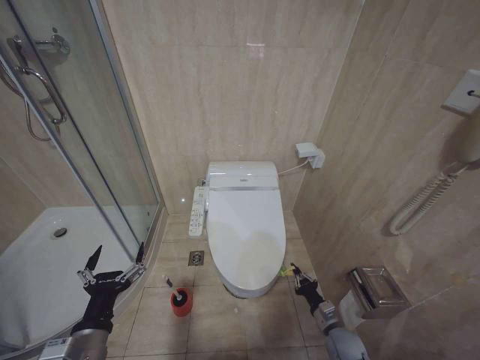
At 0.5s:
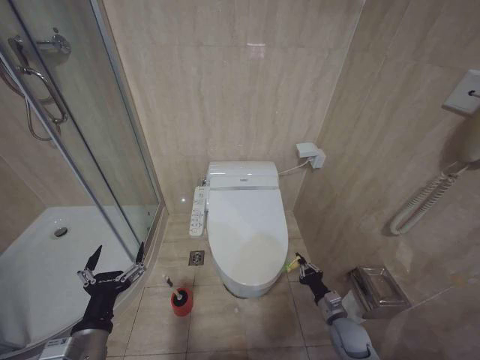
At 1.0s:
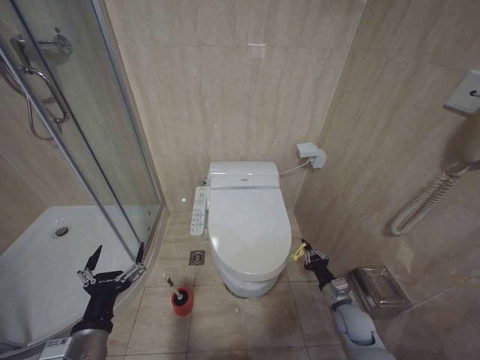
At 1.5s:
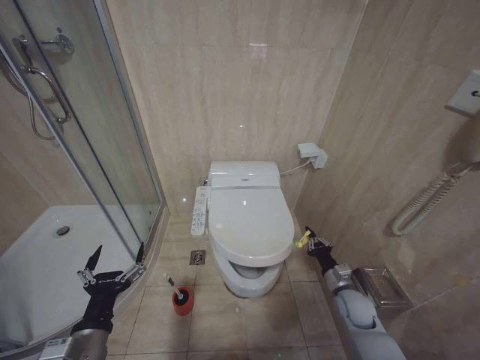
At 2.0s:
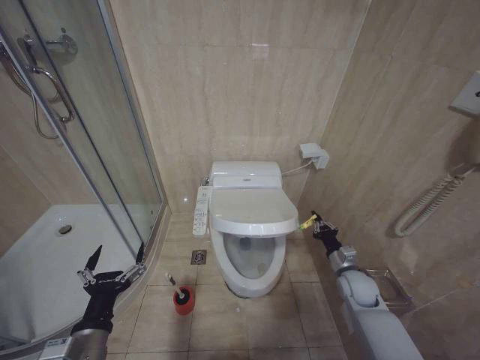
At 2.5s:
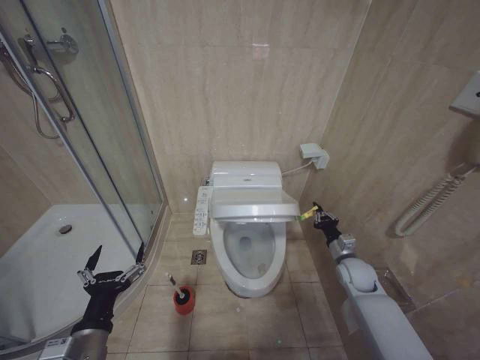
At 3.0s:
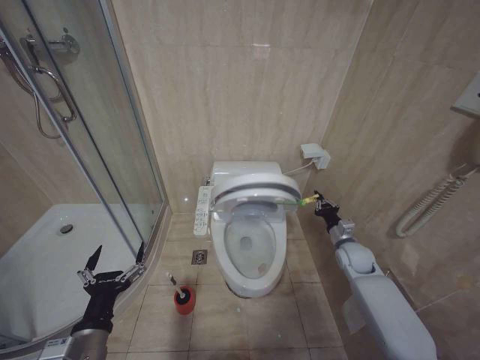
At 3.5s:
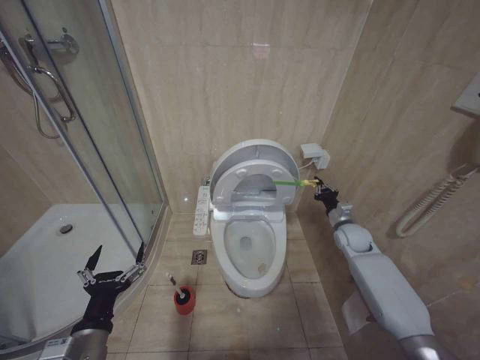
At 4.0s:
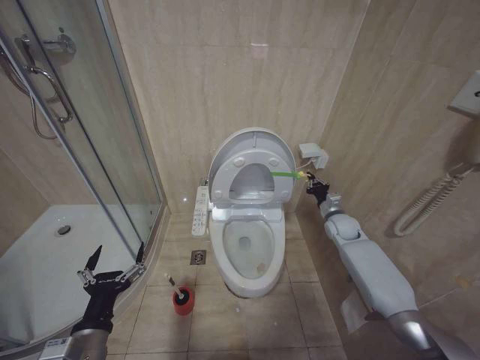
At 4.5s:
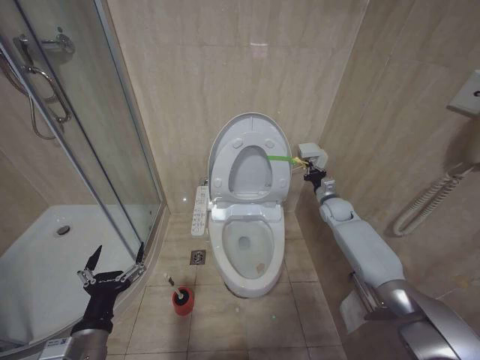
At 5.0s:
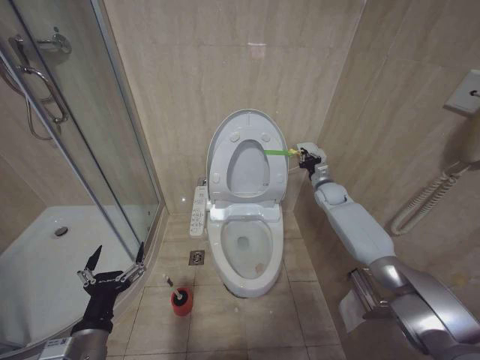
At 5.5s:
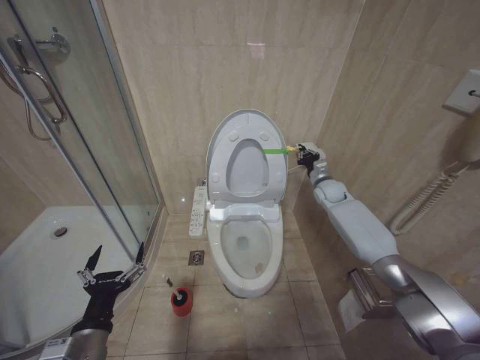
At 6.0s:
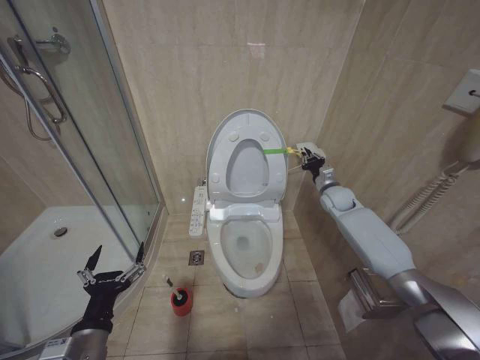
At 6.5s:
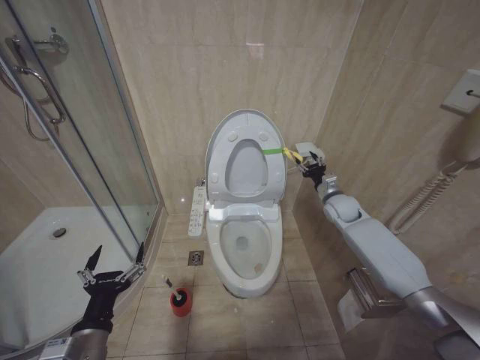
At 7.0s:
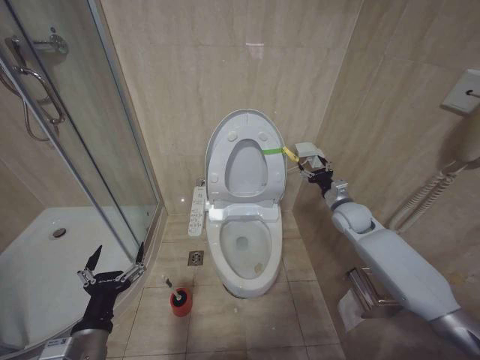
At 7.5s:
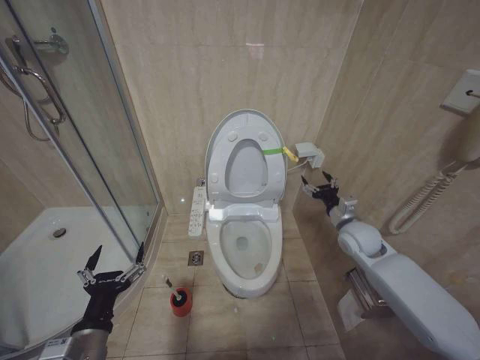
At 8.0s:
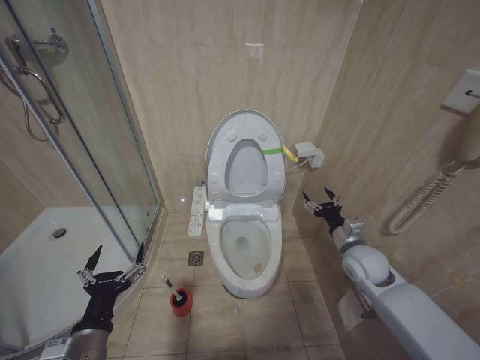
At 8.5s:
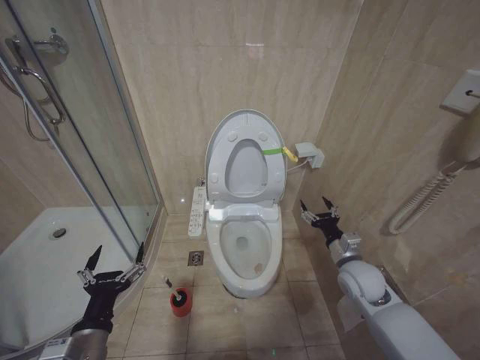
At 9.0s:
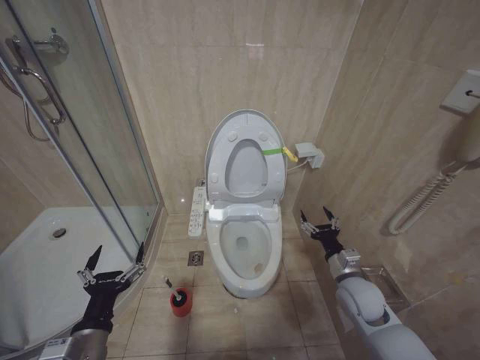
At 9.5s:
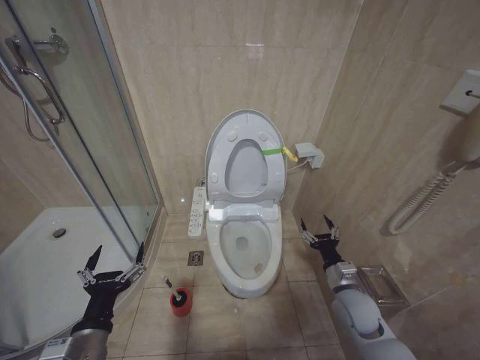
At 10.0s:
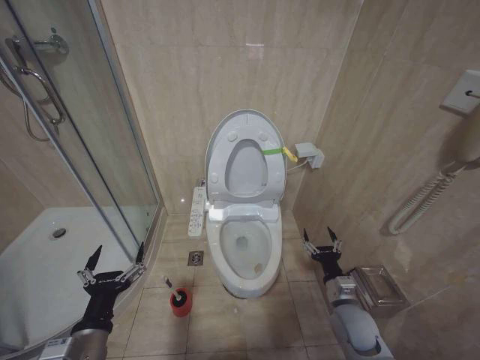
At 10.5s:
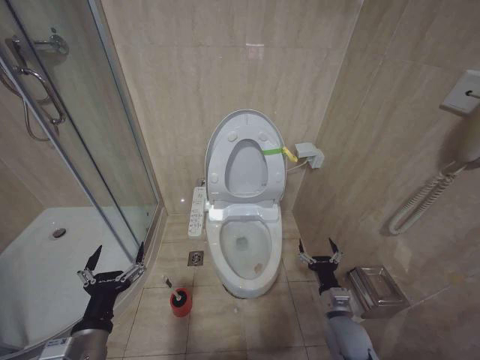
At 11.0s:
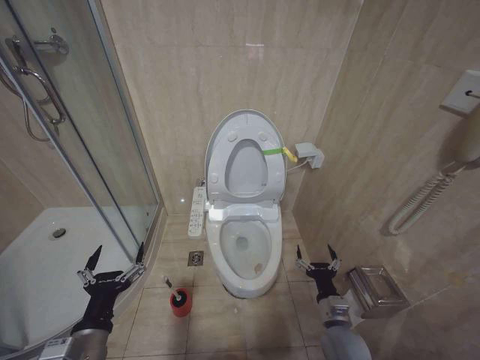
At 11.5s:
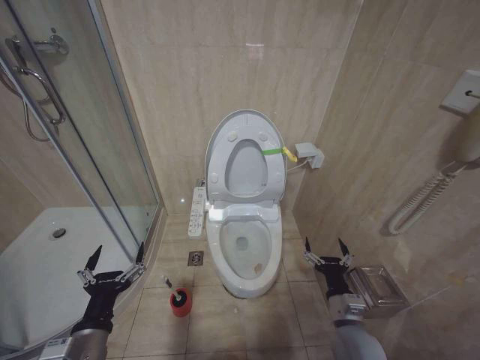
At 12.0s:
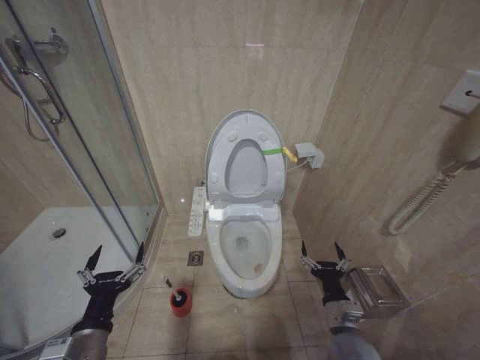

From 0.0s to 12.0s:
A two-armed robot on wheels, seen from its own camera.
Task of the whole recording: Open the toilet lid, clean the toilet bowl with a toilet brush, close the toilet lid, and flush.
From 0.0s to 2.0s: The right gripper travels upward and forward by roughly 15 cm.
From 2.0s to 4.0s: The right gripper heads forward and upward, covering some 15 cm.
From 4.0s to 6.0s: The right gripper shifts roughly 10 cm upward and forward.
From 6.0s to 8.0s: The right gripper moves backward, roughly 20 cm, and opens.
From 8.0s to 10.0s: The right gripper heads downward and backward, covering roughly 15 cm.
From 10.0s to 12.0s: The right gripper travels backward by about 5 cm.

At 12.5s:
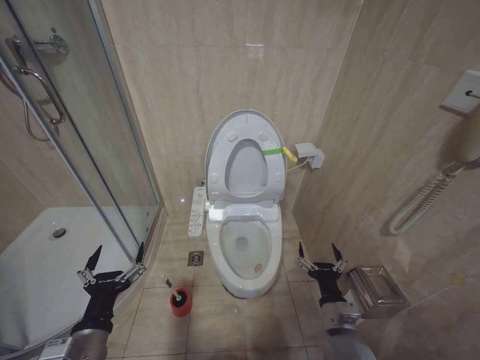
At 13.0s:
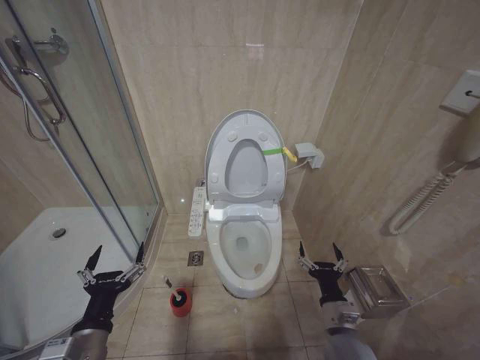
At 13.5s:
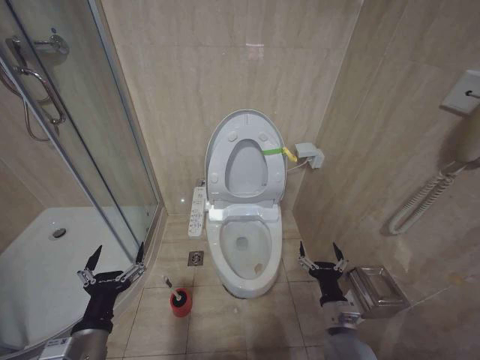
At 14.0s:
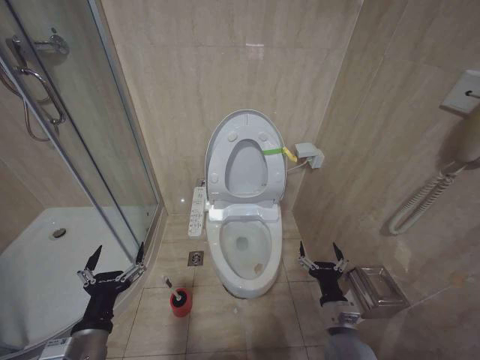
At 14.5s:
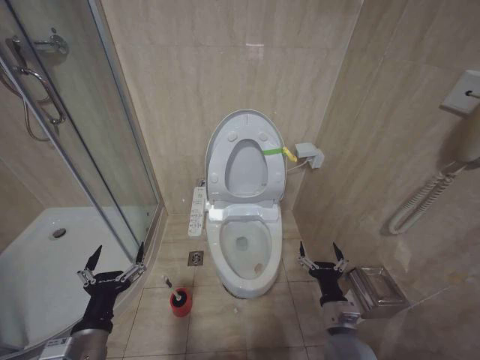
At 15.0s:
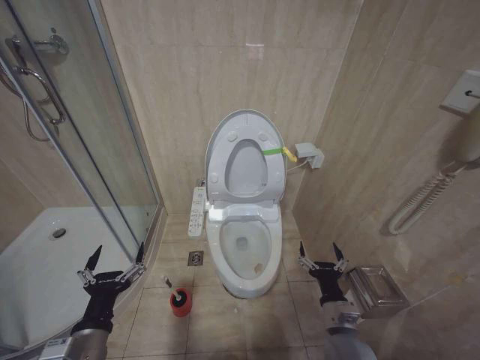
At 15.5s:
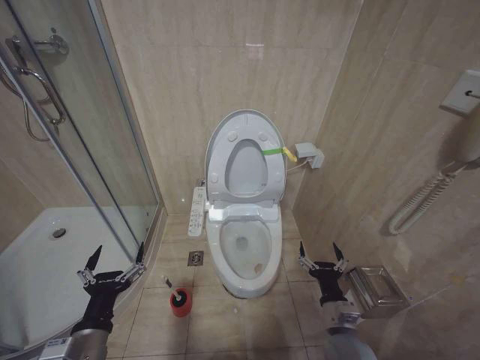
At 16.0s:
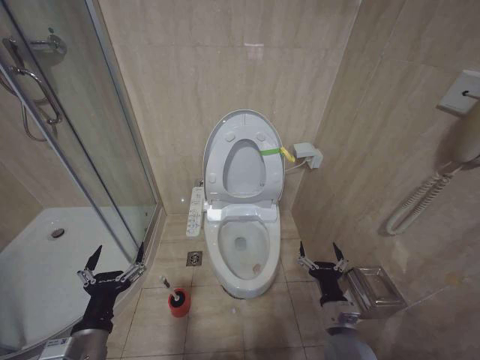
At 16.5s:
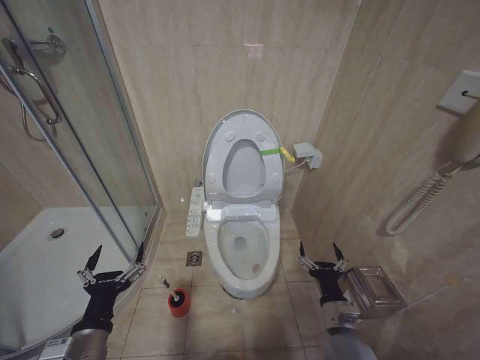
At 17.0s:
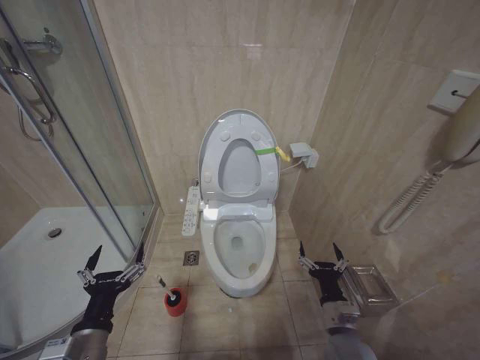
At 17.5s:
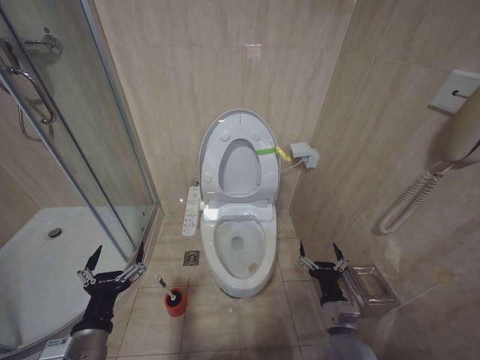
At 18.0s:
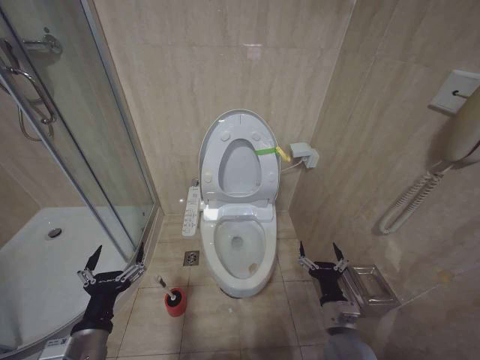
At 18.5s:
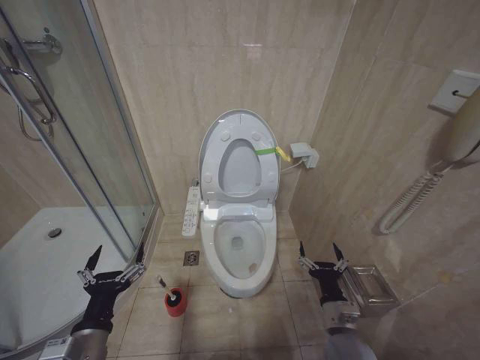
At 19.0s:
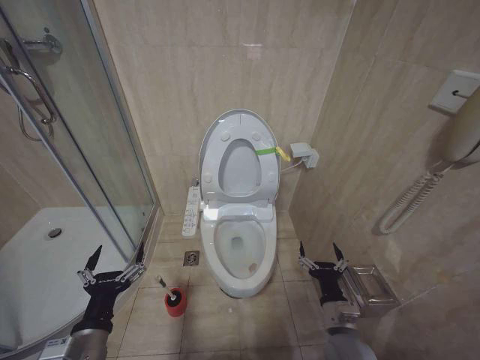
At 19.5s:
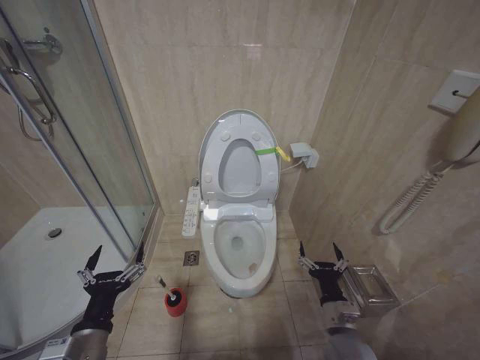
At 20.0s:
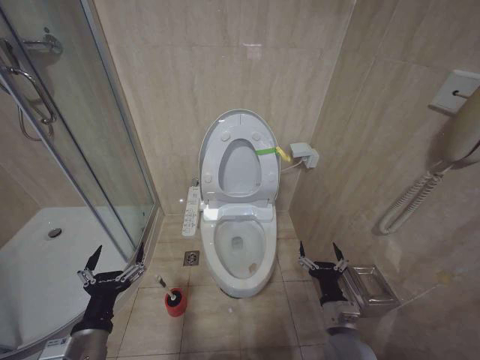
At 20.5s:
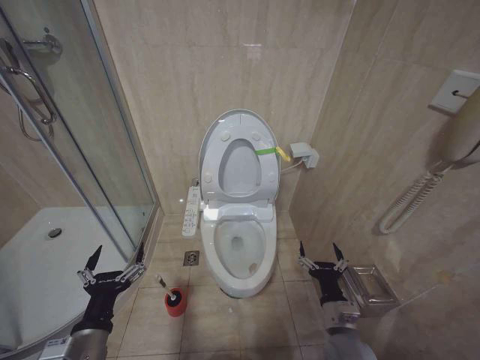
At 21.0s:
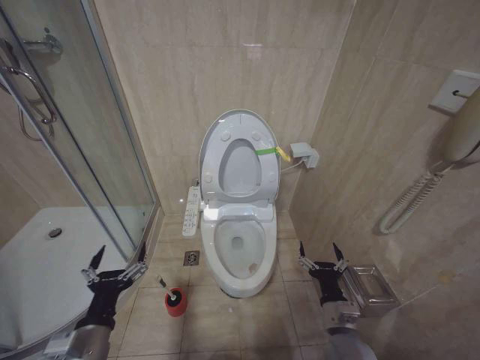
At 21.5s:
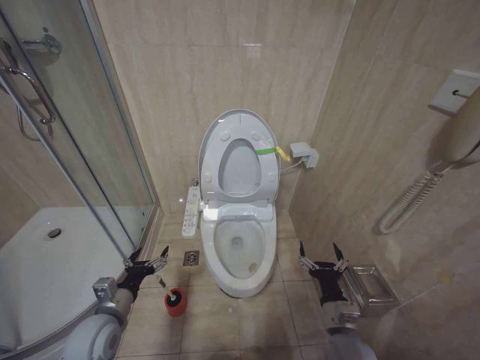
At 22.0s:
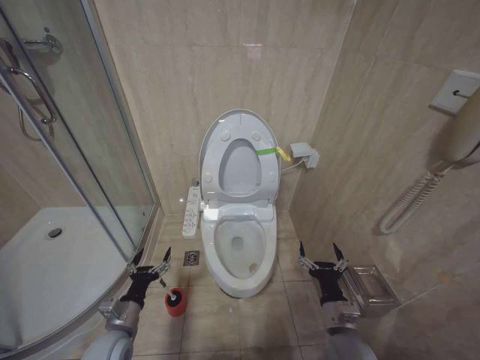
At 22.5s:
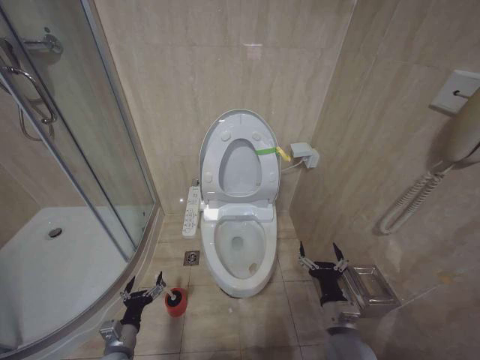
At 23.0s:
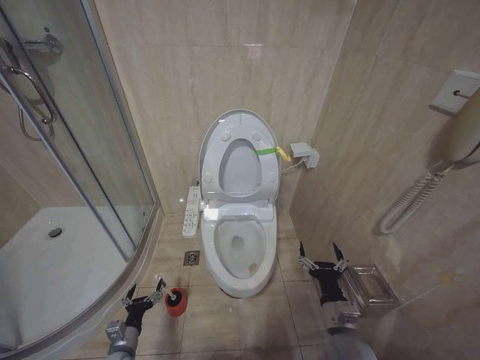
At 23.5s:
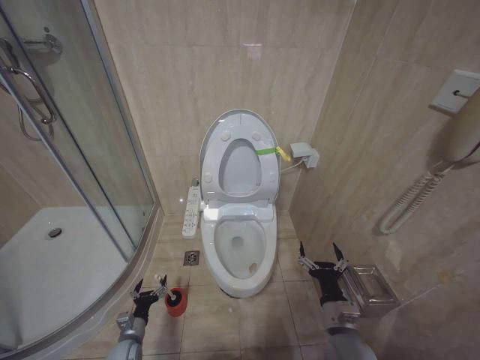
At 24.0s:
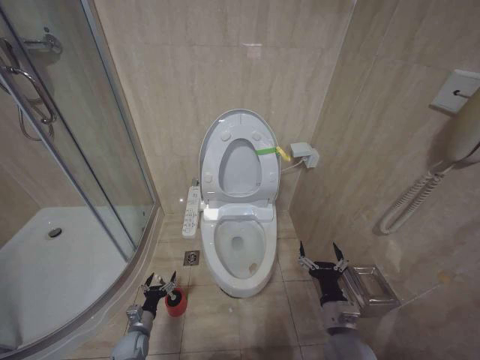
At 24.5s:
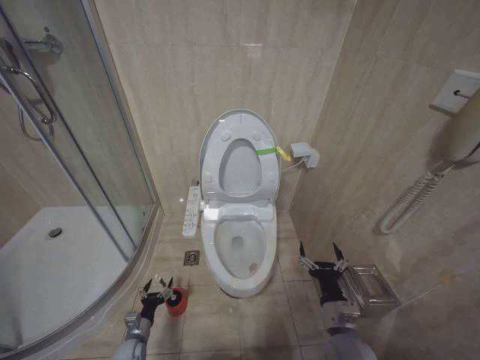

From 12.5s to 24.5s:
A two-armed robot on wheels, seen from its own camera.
Task of the whole recording: Open the toilet lid, clean the toilet bowl with a toilet brush, close the toilet lid, and flush.
From 12.5s to 20.5s: Both grippers stay put.
From 20.5s to 22.5s: The left gripper moves downward and forward, about 20 cm.
From 22.5s to 24.5s: The left gripper is displaced downward and forward by roughly 15 cm.

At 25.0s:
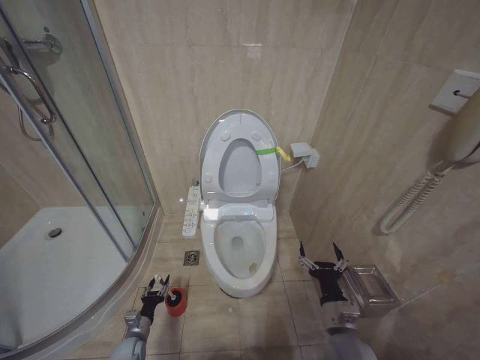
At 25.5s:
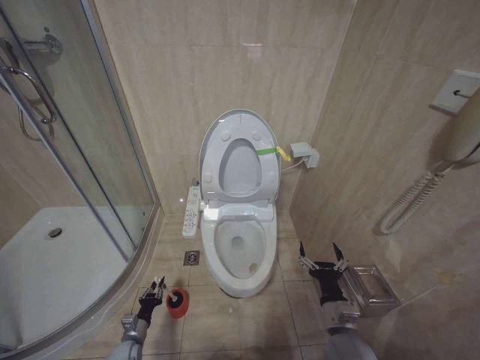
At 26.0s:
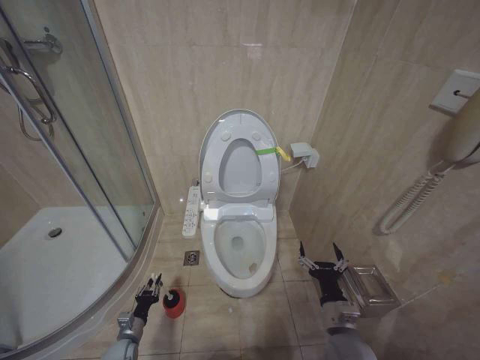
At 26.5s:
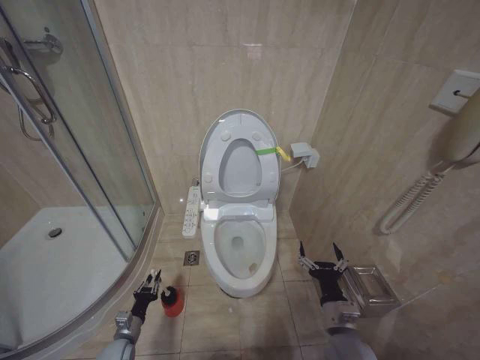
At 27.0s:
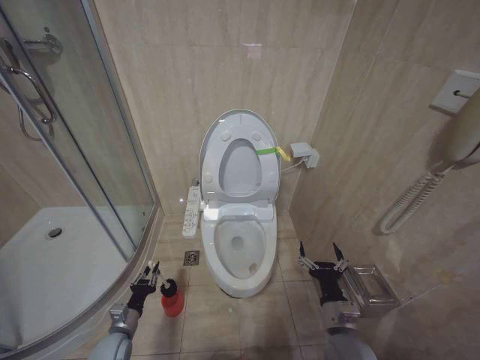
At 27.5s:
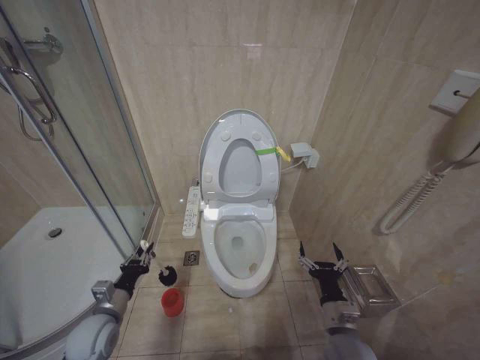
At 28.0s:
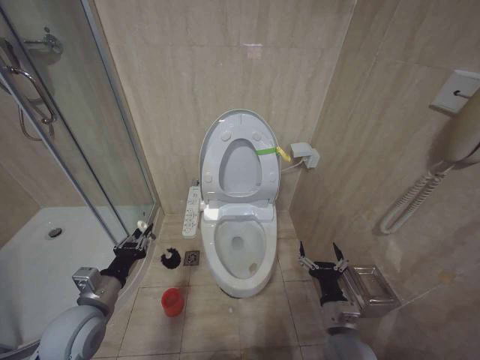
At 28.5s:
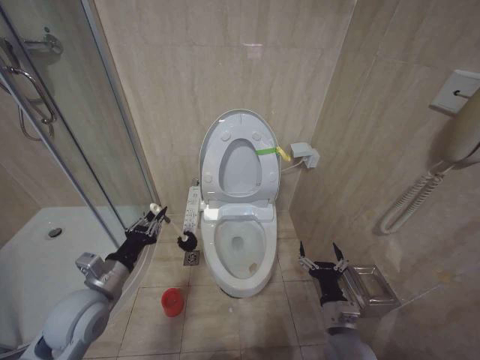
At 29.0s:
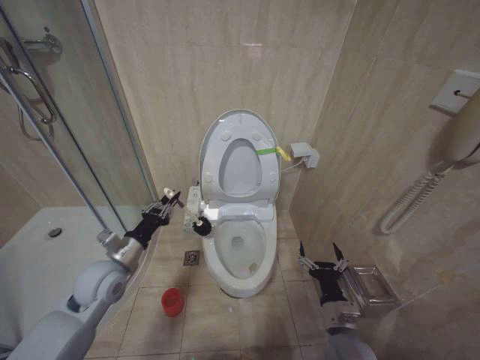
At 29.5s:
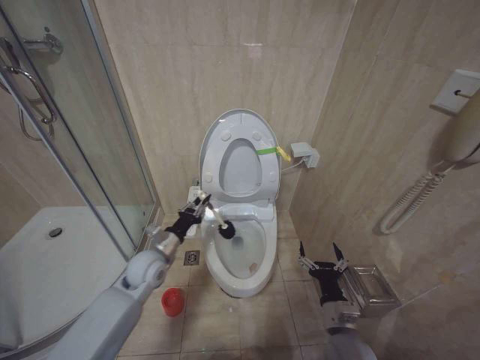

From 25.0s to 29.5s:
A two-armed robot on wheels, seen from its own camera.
Task of the whole recording: Open the toilet lid, clean the toilet bowl with a toilet brush, close the toilet lid, and flush.
From 25.0s to 27.0s: The left gripper goes about 10 cm upward, and closes up.
From 27.0s to 29.5s: The left gripper heads upward, forward and to the right, covering approximately 25 cm.
